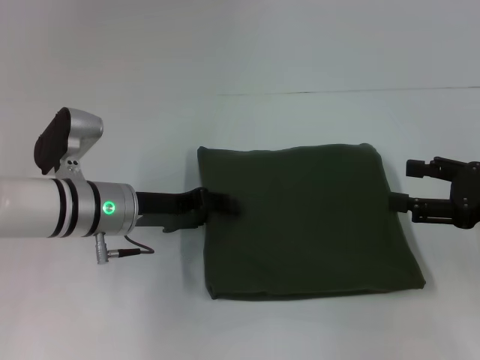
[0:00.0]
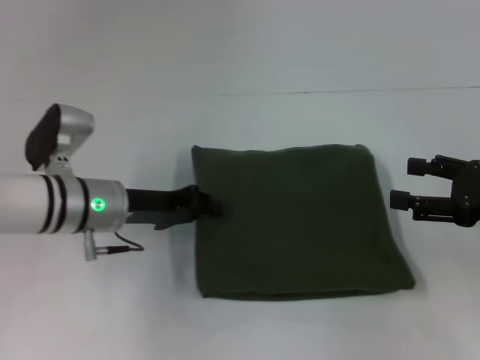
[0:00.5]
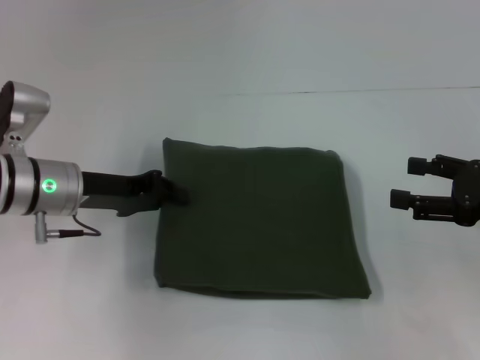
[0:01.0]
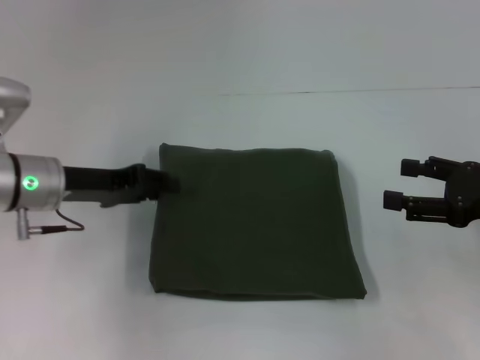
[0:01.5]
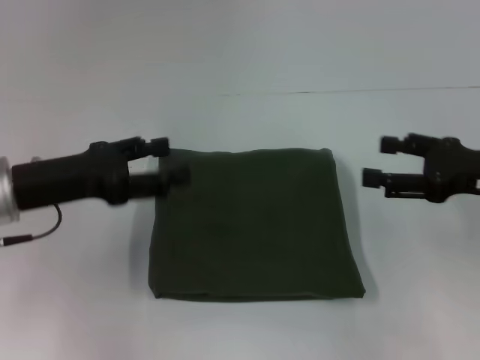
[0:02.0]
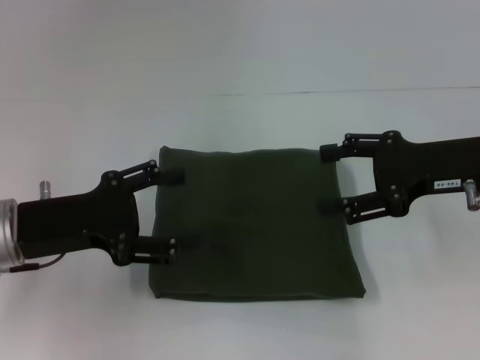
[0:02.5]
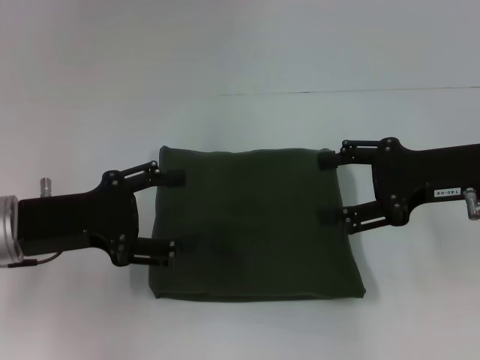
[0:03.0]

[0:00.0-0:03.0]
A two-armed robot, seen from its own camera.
0:00.0 to 0:01.5: The left gripper heads to the left, covering about 5 cm, and closes.
0:01.5 to 0:03.0: The left gripper is displaced backward by approximately 10 cm, and opens; the right gripper moves to the left, some 5 cm.
